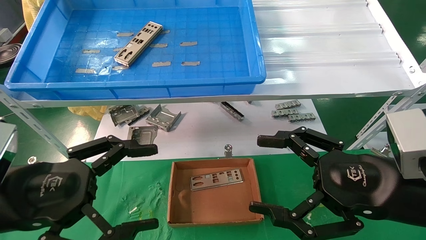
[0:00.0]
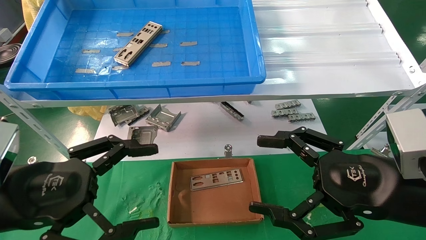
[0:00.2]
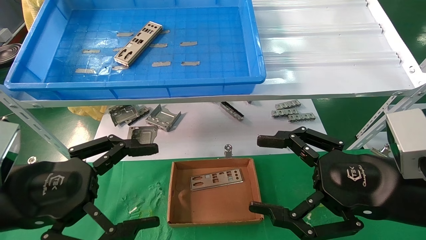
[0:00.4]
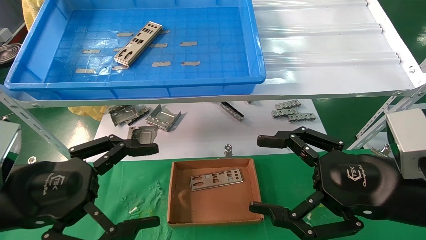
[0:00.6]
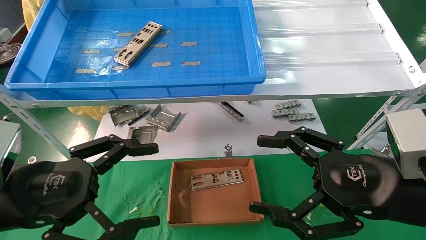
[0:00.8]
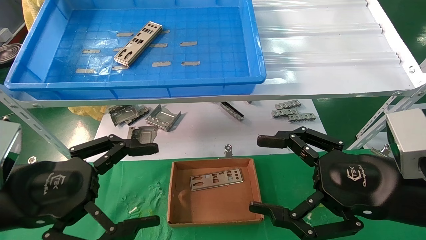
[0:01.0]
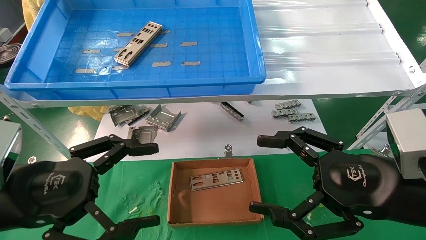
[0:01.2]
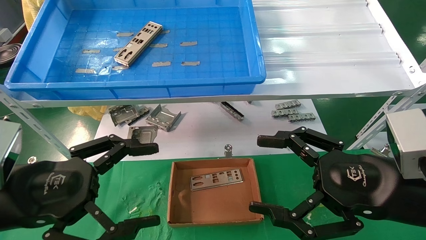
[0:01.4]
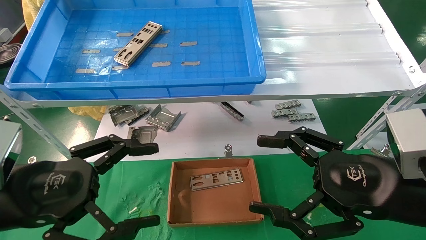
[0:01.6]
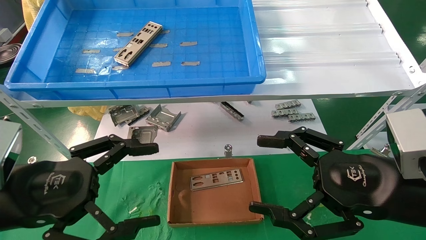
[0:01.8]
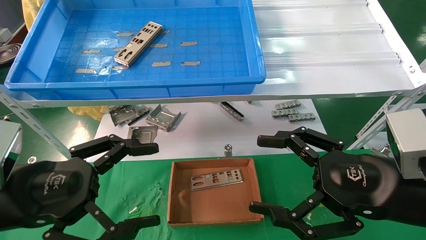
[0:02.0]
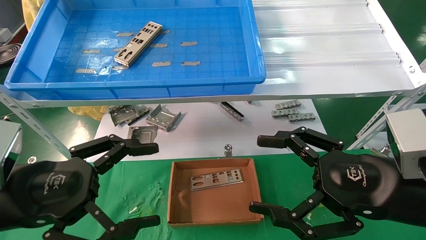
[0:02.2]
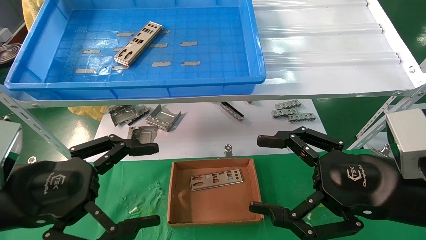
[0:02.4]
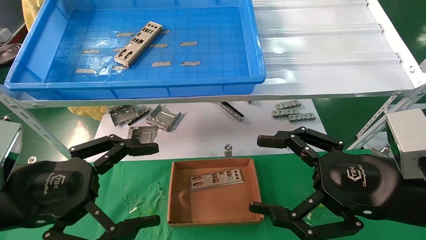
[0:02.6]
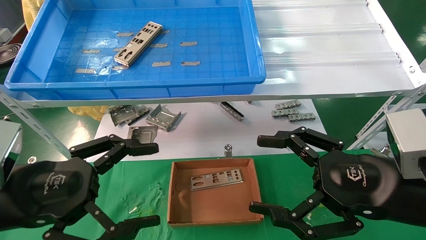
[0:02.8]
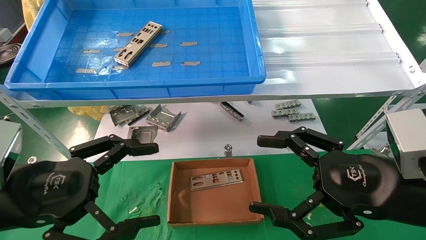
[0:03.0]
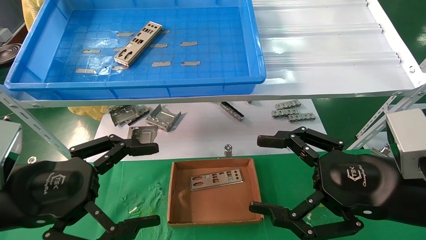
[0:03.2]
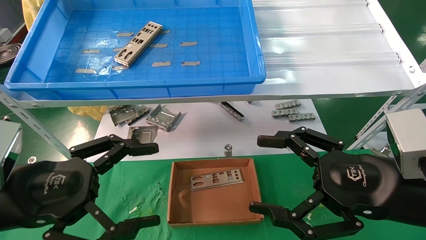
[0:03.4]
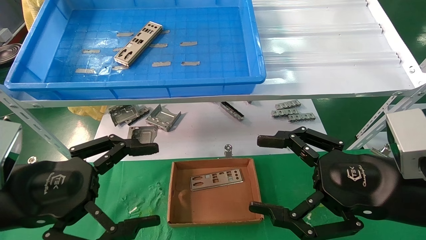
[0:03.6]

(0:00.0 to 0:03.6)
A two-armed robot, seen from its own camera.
Task of the whole recording: pick up the parts on the tray and put them in the cardboard box.
0:00.0 - 0:03.6: Both grippers stay about where they are.

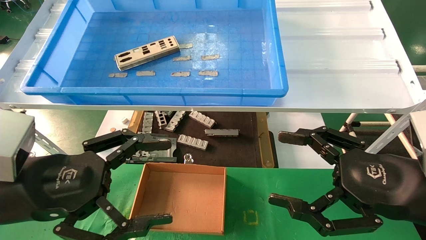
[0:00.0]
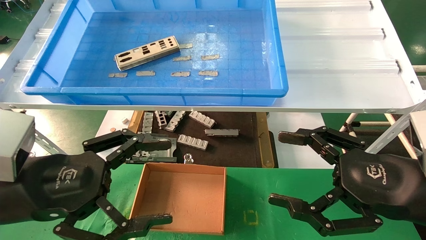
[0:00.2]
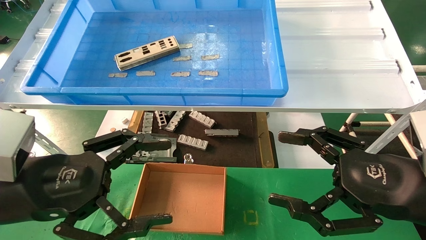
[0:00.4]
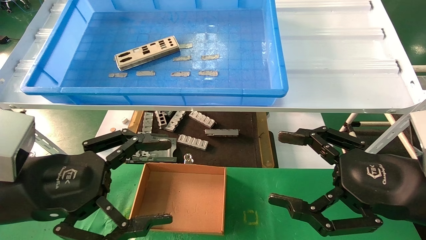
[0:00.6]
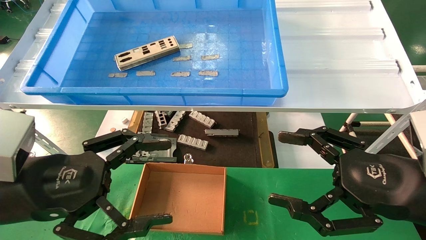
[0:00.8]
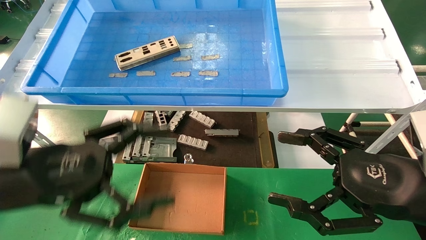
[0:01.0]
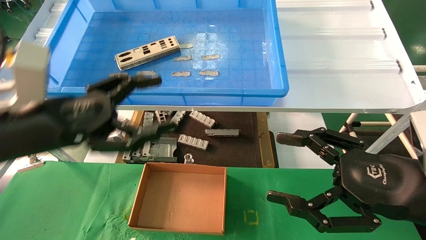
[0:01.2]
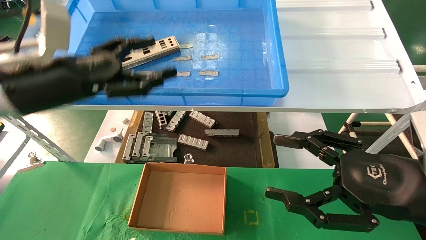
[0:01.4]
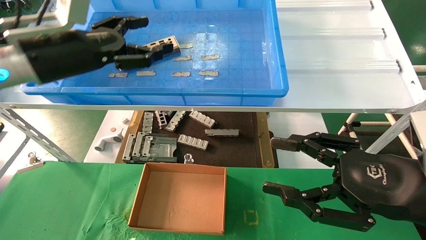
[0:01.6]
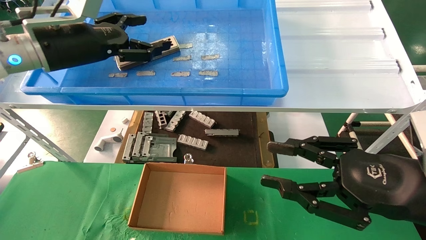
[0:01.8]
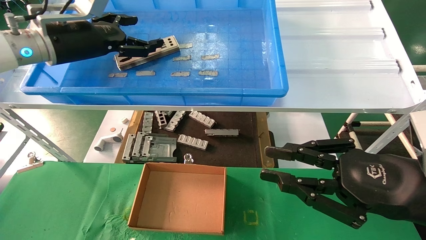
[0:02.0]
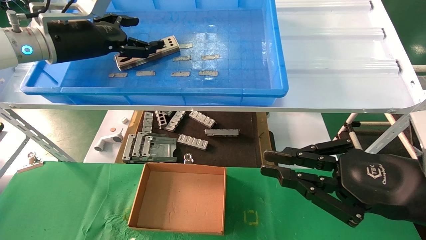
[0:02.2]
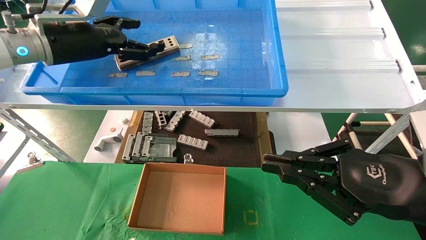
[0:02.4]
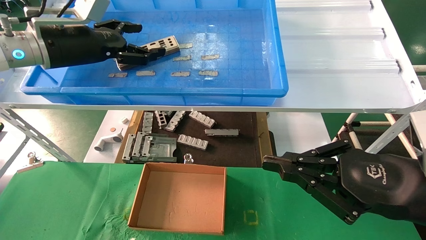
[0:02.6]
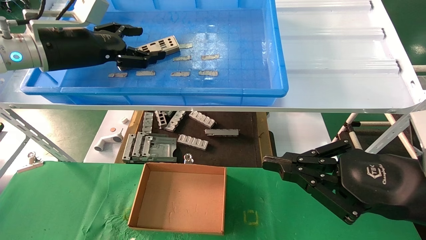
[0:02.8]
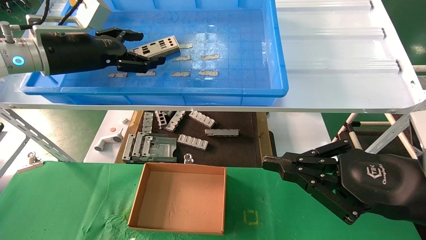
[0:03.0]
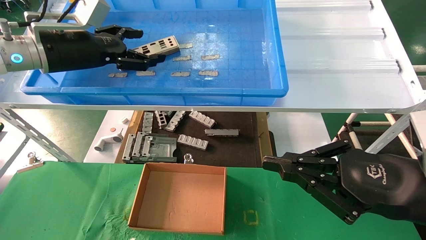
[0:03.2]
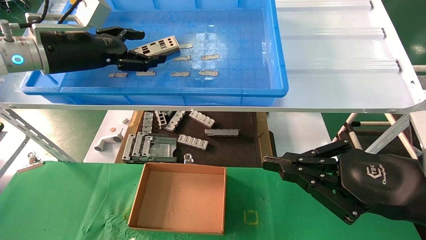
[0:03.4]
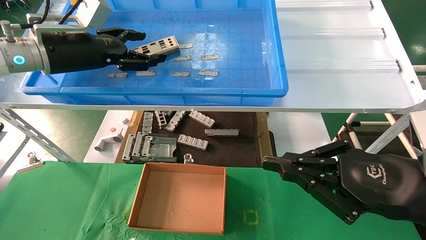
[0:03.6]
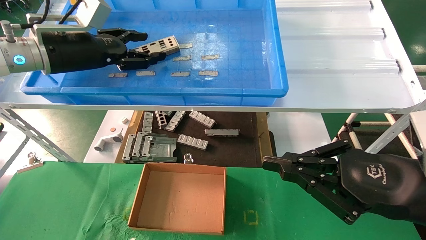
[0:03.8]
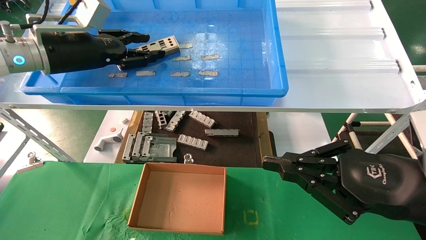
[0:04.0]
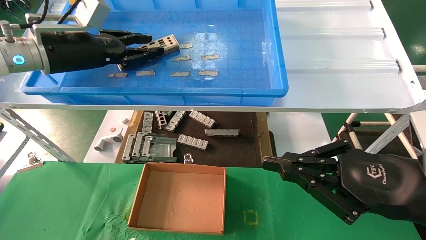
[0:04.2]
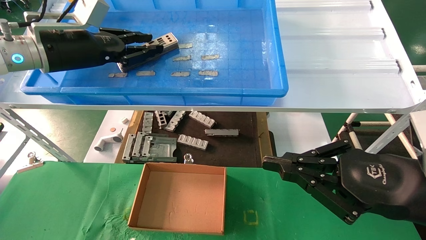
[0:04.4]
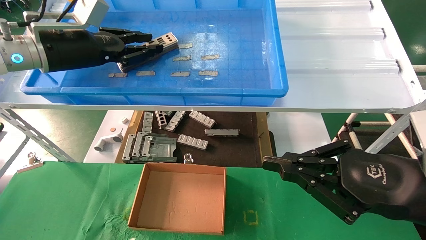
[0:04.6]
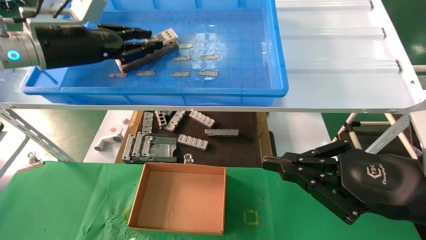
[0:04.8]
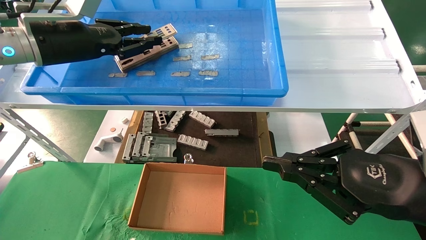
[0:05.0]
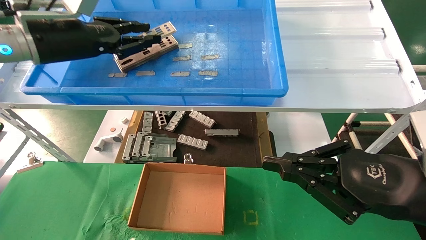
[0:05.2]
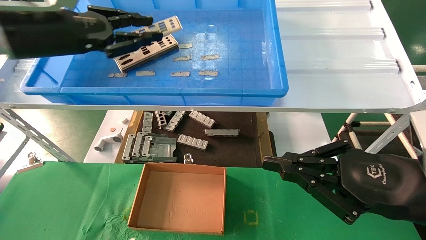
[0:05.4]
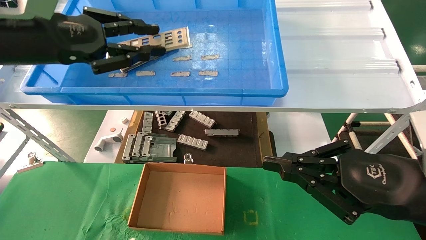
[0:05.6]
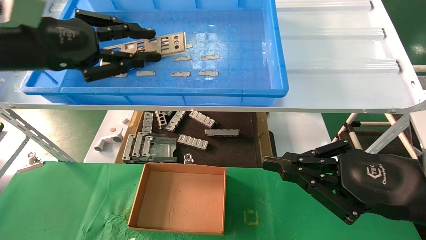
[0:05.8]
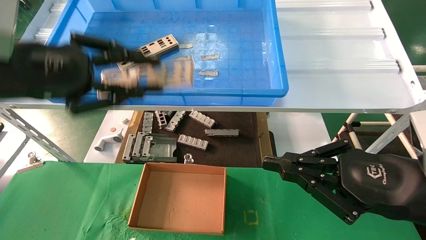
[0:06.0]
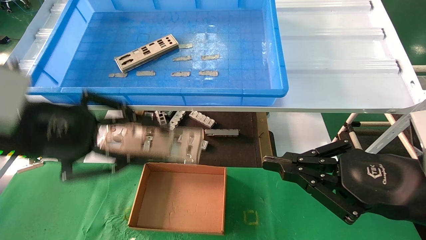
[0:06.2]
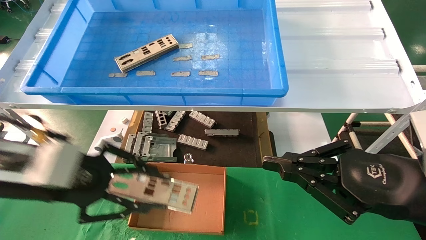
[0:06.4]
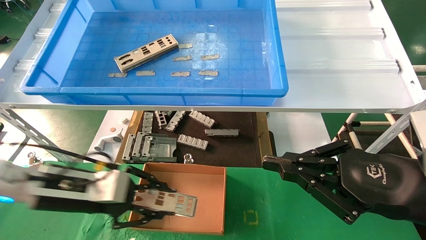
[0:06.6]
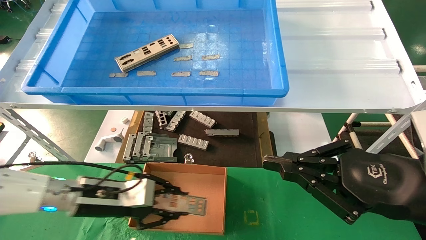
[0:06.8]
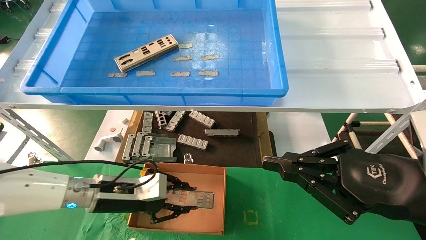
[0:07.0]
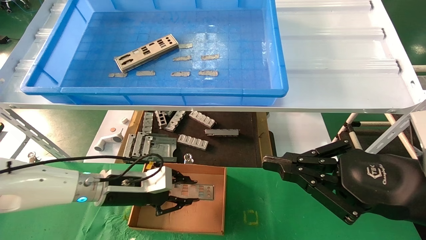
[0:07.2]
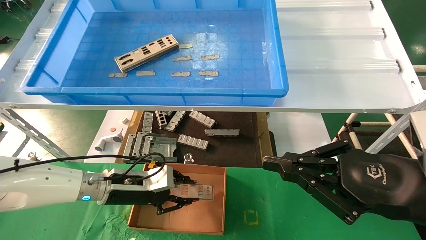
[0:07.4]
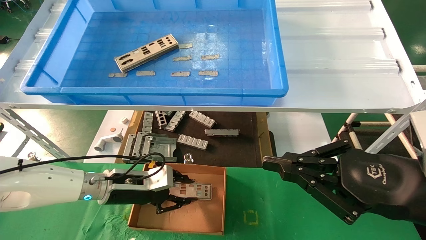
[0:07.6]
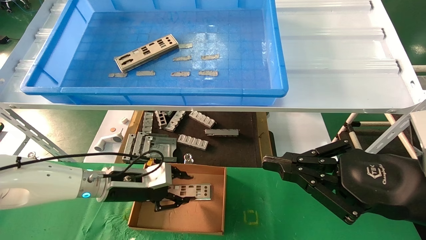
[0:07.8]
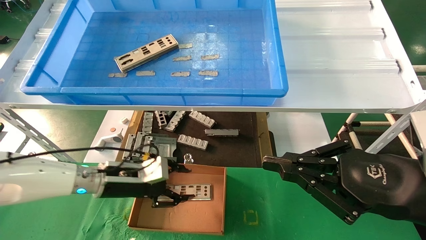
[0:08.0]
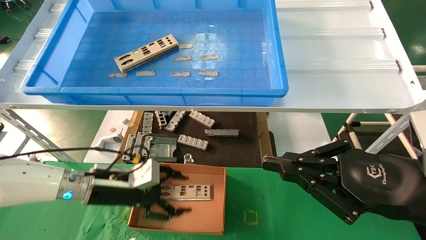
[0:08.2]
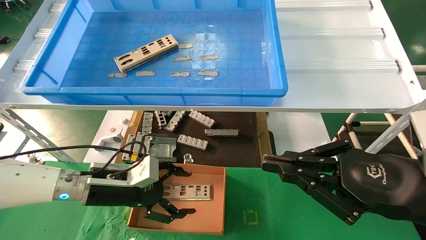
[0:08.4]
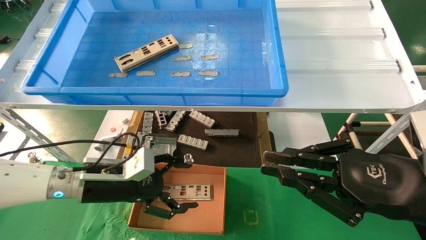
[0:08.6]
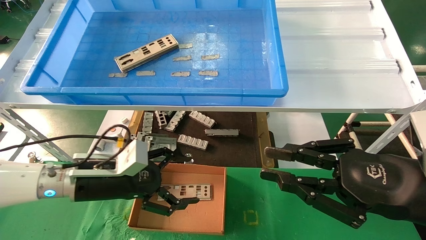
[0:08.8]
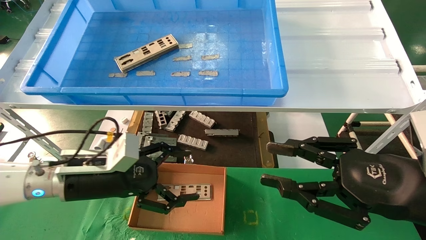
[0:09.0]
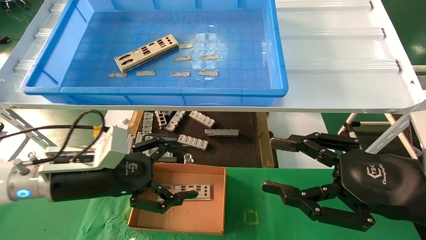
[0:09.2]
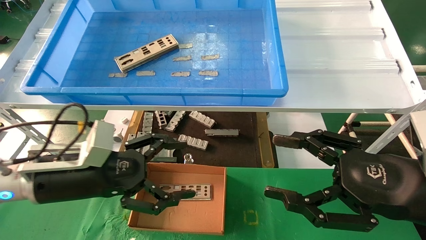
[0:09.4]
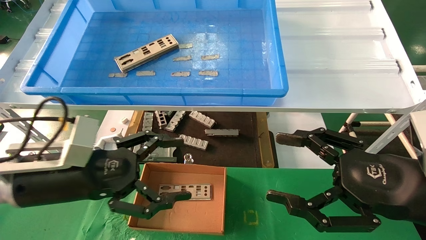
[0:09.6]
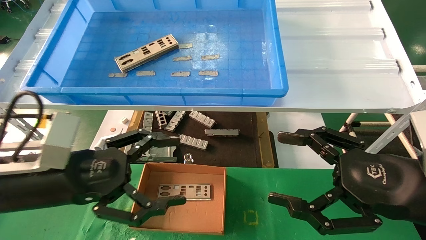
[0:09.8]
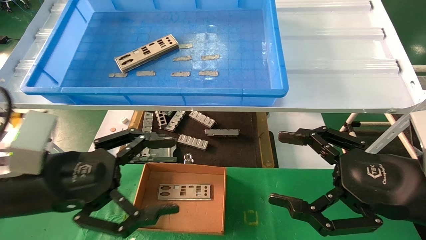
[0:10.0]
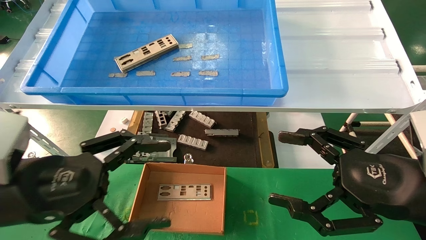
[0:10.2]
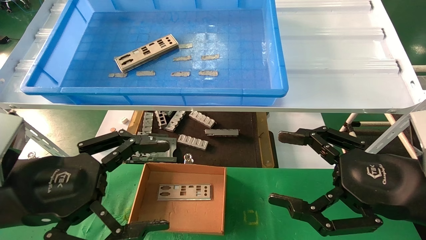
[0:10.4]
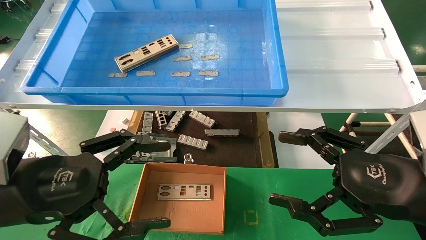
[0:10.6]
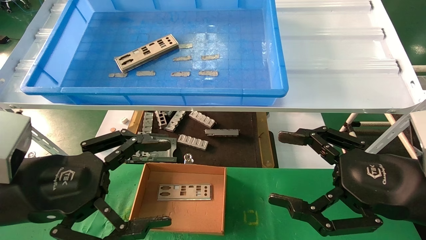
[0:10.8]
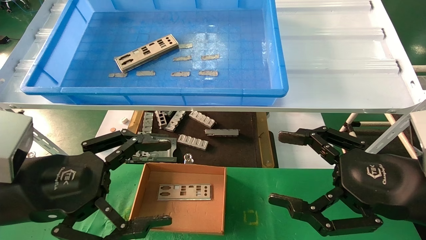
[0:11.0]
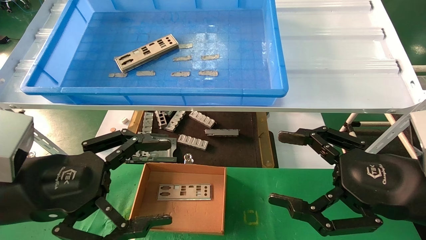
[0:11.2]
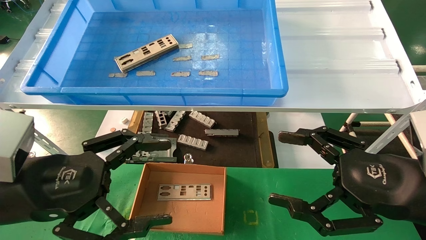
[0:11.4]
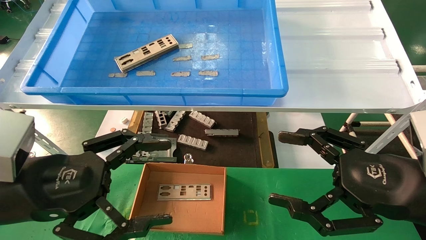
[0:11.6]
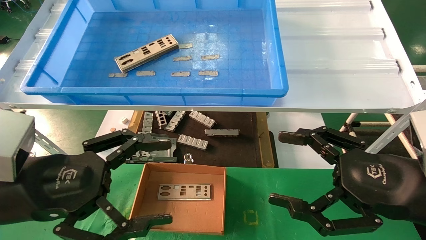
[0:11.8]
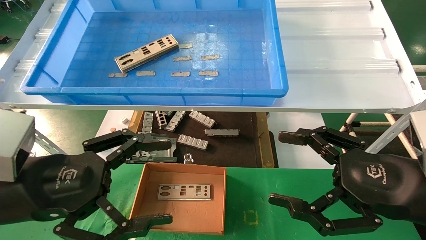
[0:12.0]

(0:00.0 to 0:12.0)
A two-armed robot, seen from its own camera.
Task of the whole recording: pick up the parts on the tray and put them in the cardboard box.
Step, 0:01.2 - 0:04.6: Pick up the IO bracket from the container box.
Step, 0:04.8 - 0:07.8: Place the IO bracket into the ingredient slot.
0:00.0 - 0:01.6: The left gripper heads forward and upward, covering some 20 cm.
0:01.6 - 0:03.0: The right gripper closes its fingers.
0:03.0 - 0:04.4: The left gripper closes up.
0:04.4 - 0:06.0: The left gripper moves backward, roughly 15 cm.
0:06.0 - 0:07.6: The left gripper is displaced downward and forward by about 30 cm.
0:07.6 - 0:09.0: The left gripper travels backward and upward by approximately 10 cm, and opens its fingers.
0:09.0 - 0:10.4: The right gripper opens. The left gripper shifts about 15 cm backward and upward.
0:10.4 - 0:12.0: The two grippers keep their place.

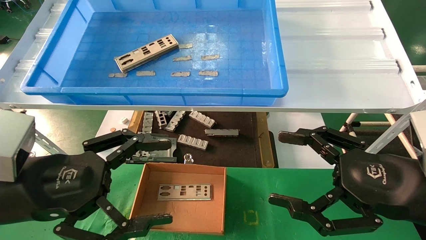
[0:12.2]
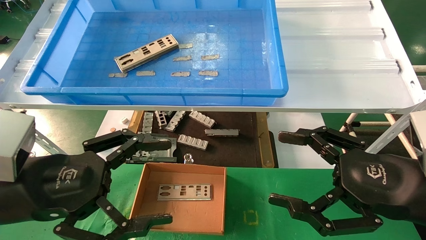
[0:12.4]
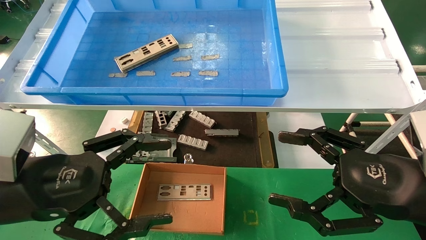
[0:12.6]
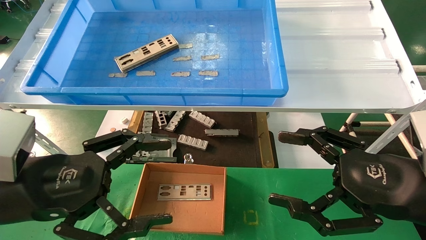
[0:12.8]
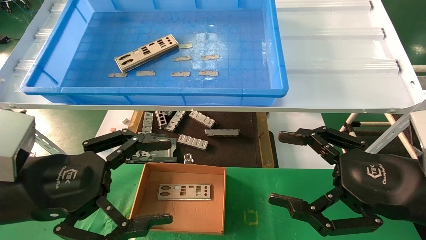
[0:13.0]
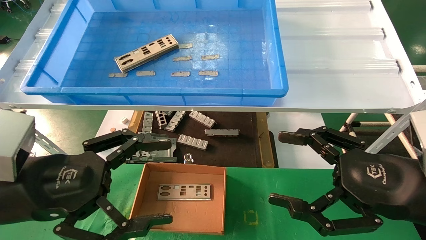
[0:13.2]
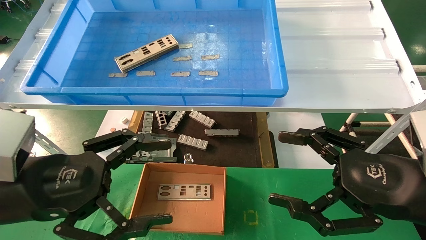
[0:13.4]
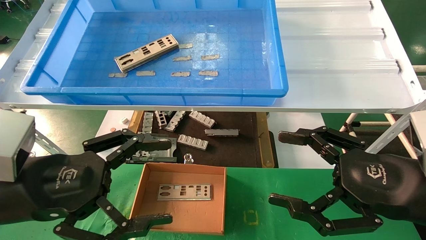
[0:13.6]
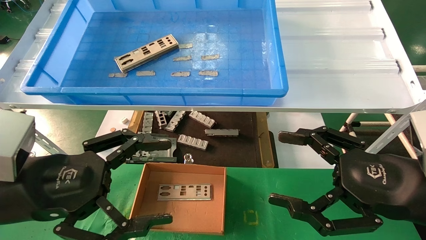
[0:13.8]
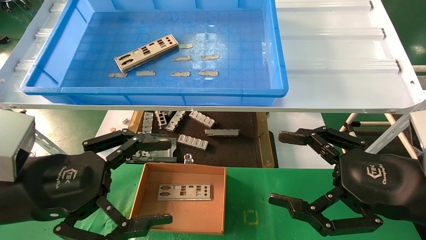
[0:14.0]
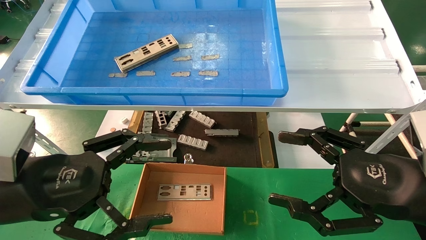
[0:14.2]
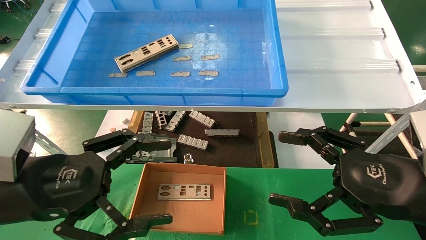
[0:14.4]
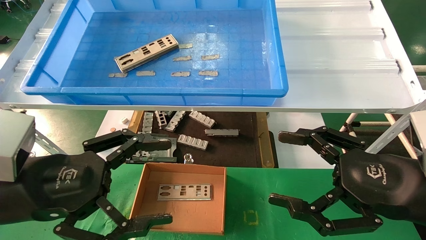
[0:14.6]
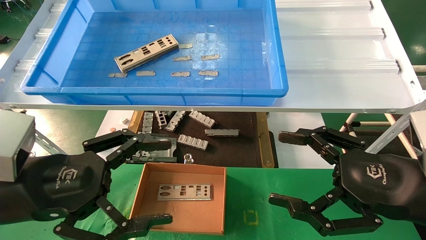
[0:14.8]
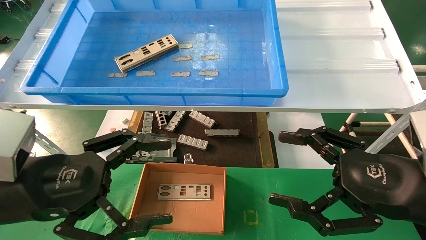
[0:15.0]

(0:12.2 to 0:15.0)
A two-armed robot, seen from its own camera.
Task of the whole recording: pick up the parts on the tray and put them in the cardboard box.
0:12.2 - 0:15.0: Both grippers stay about where they are.
